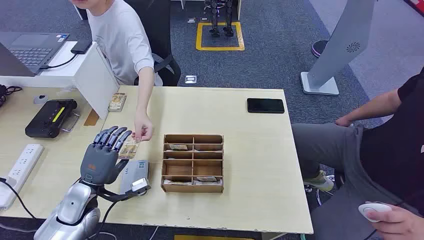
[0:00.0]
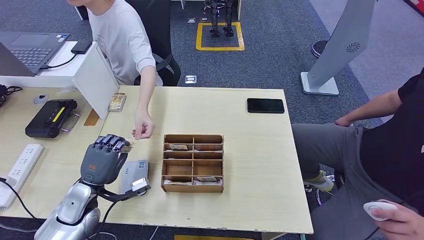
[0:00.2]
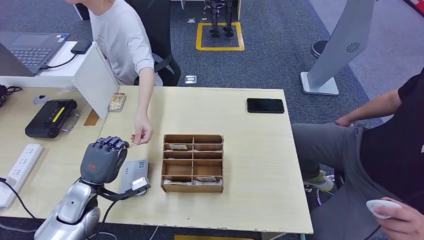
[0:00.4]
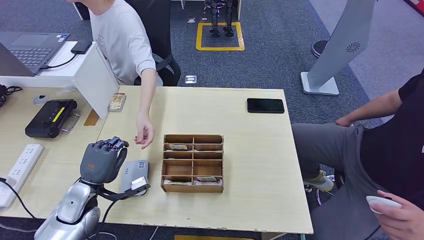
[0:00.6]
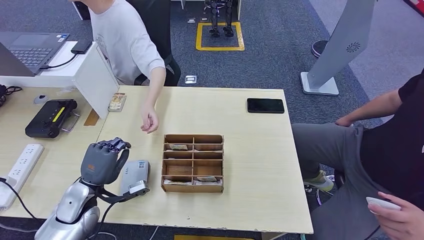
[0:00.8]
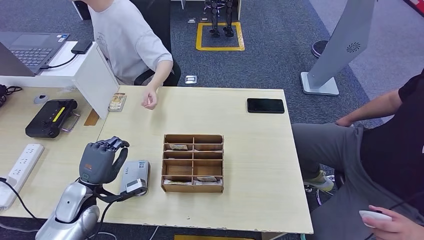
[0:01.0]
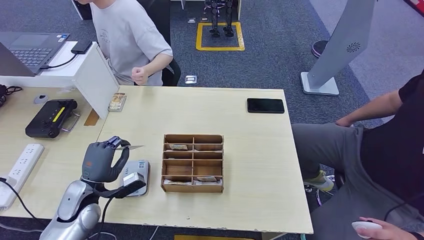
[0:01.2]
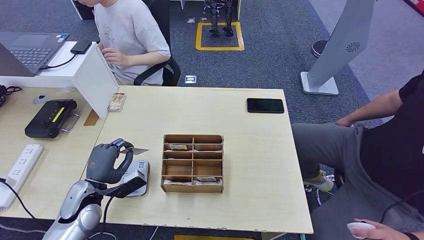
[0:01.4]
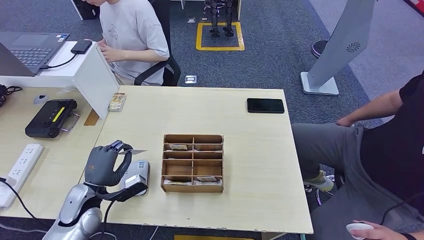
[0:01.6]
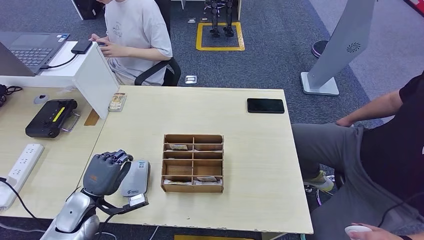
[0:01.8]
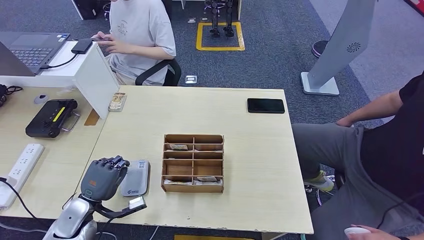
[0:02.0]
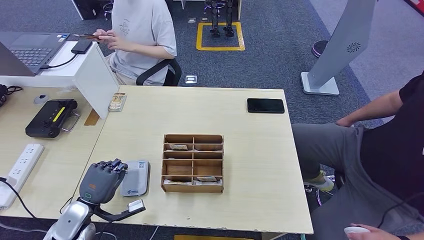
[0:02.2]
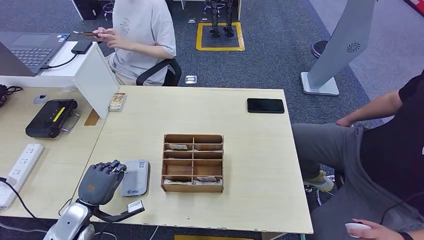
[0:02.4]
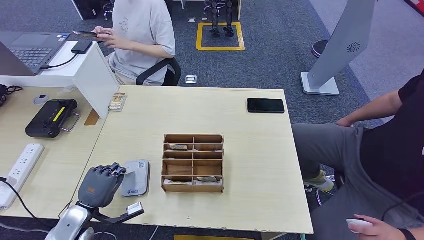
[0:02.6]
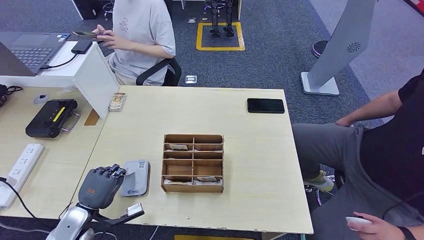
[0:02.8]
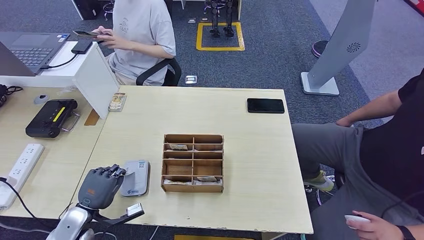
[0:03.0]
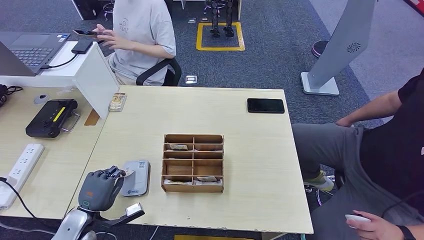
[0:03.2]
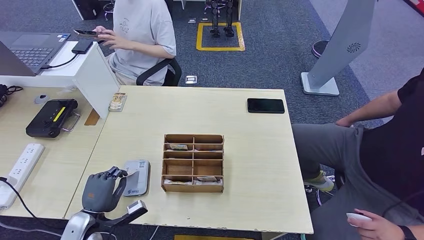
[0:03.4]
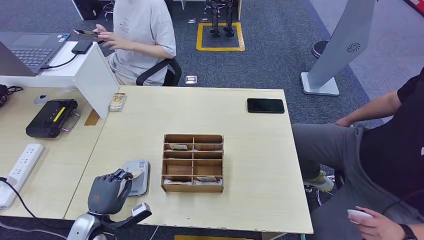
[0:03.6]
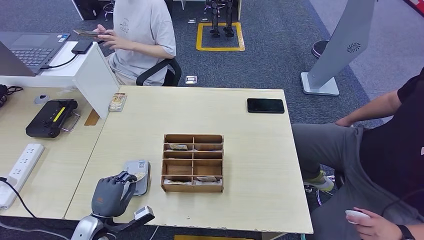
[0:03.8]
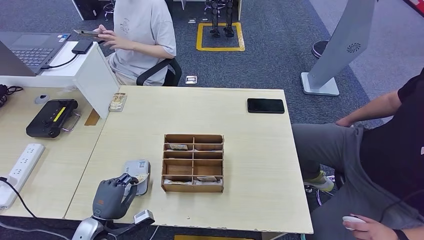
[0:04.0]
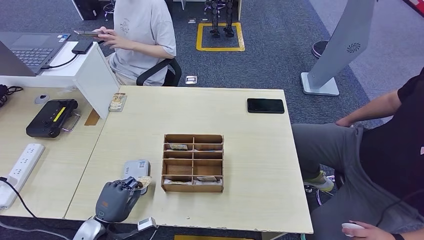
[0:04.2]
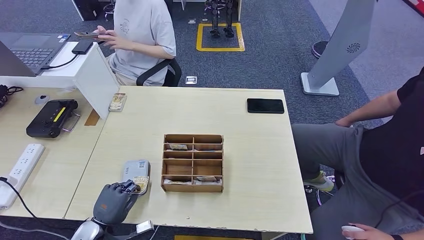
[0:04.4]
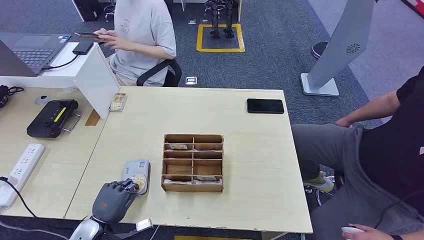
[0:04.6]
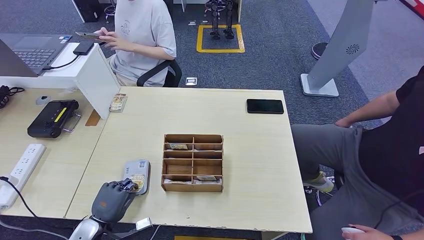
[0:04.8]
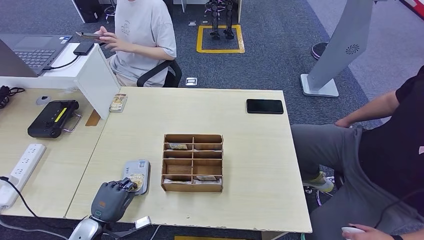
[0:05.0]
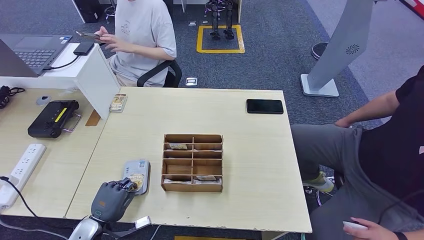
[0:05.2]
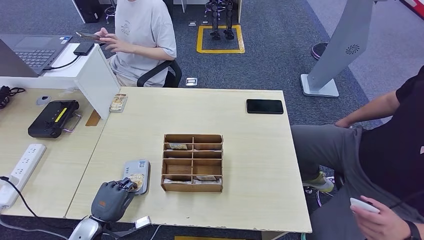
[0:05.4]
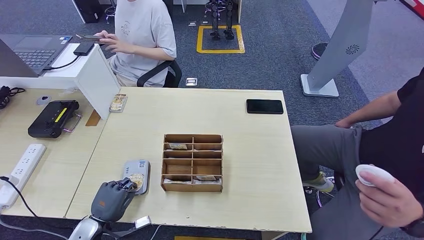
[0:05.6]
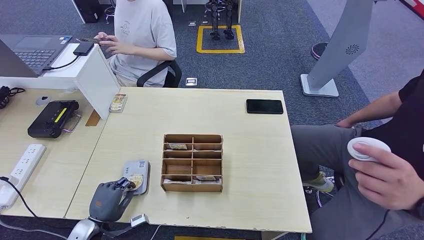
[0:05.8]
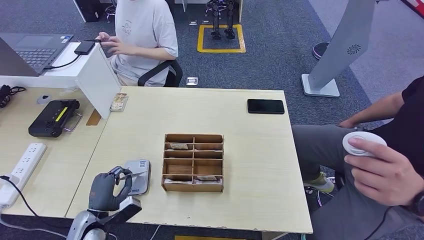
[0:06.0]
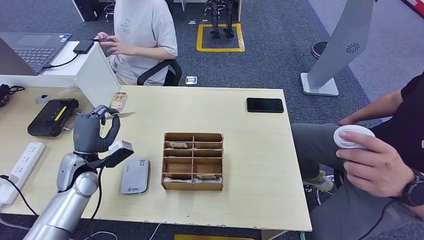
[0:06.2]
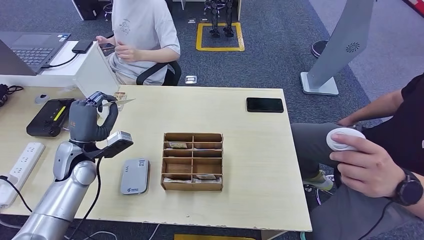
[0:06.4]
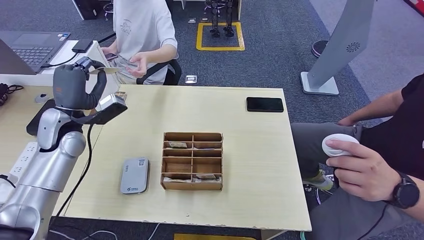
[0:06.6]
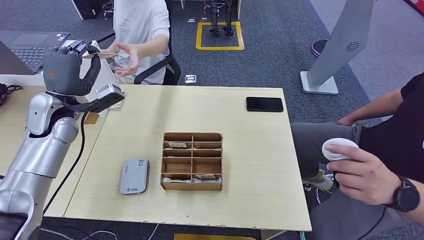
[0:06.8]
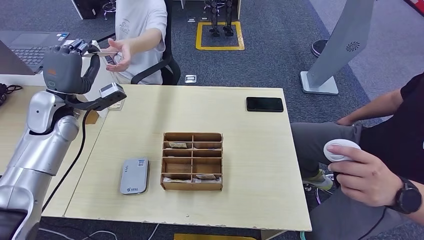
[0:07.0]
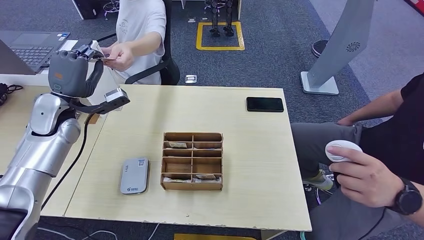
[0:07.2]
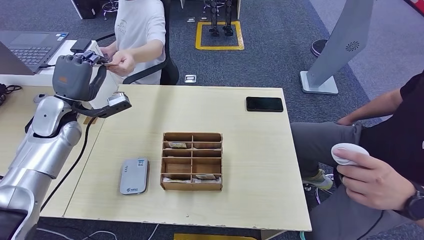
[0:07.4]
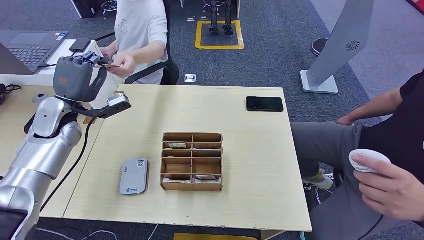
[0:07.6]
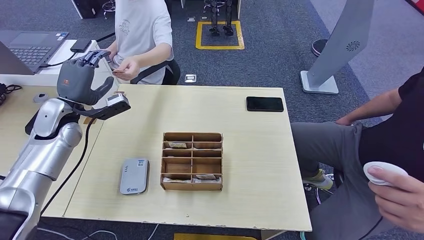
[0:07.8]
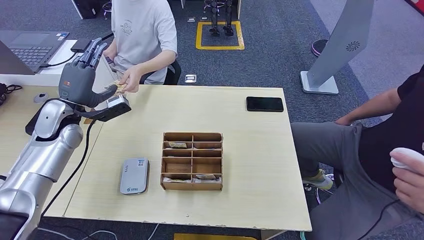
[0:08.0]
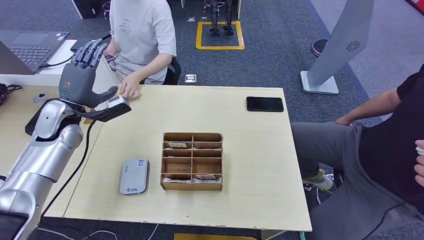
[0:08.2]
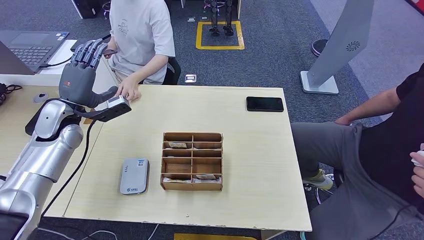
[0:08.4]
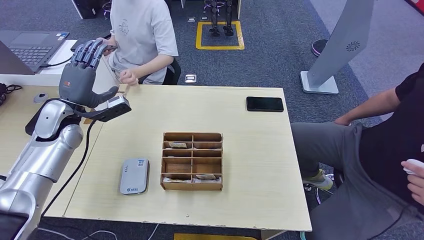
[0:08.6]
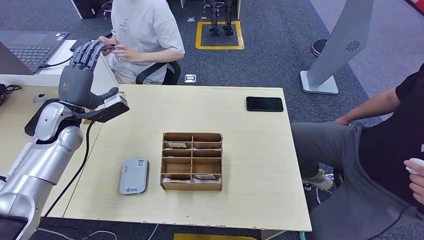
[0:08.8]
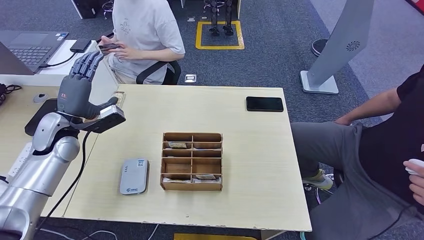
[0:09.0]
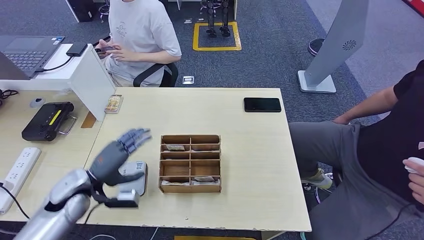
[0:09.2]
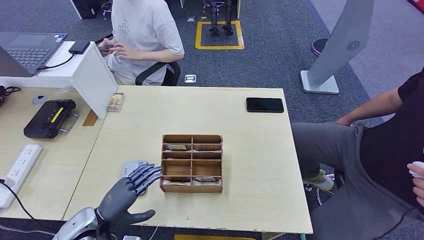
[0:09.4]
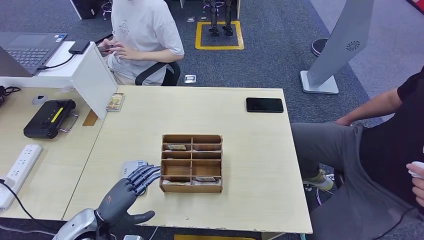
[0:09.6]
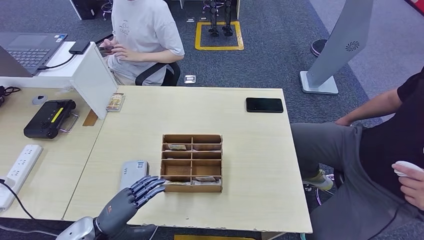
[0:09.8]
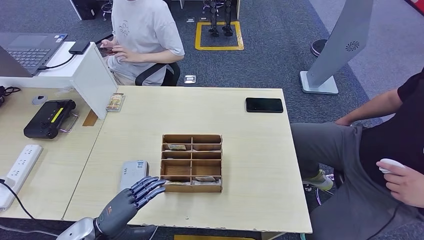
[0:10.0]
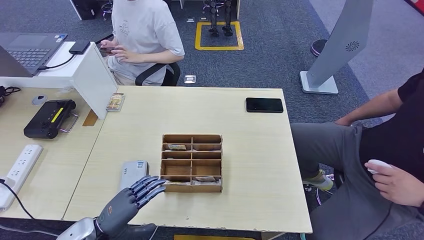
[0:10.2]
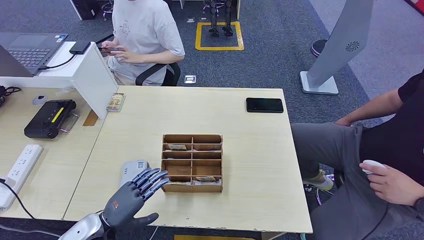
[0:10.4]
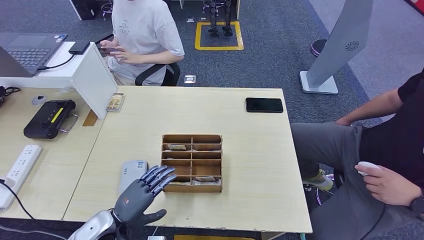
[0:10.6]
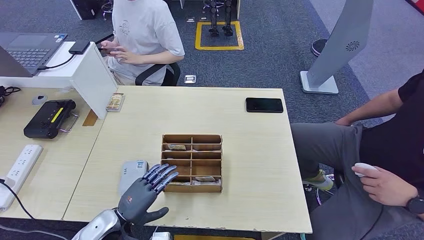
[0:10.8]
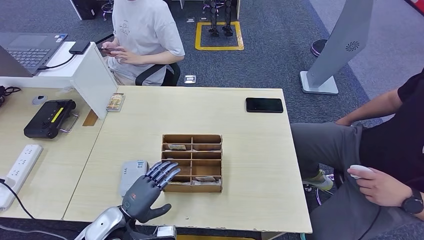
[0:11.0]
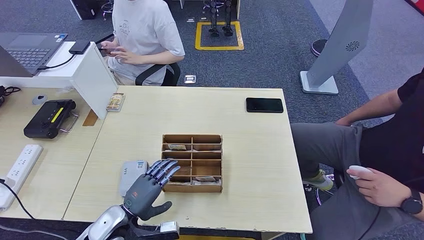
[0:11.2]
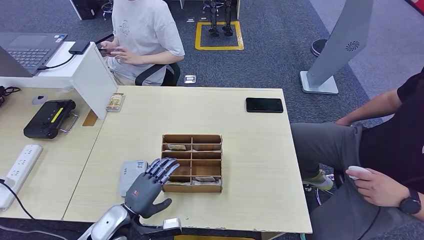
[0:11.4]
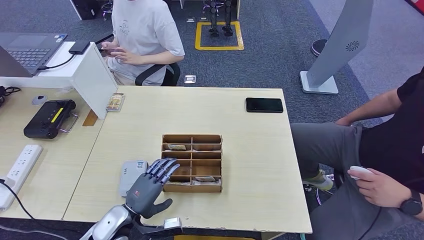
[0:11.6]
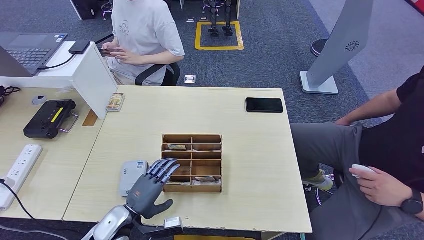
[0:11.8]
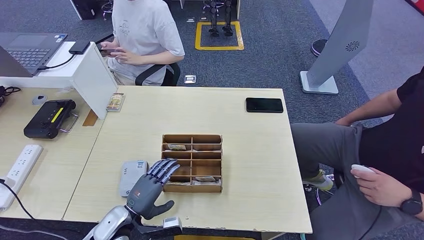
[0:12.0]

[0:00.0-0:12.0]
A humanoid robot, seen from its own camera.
Step, 0:00.0 to 0:00.8: Take the ID card from the person's hand.
Step, 0:01.0 to 0:06.0: Place the ID card on the card reader.
Step, 0:06.2 to 0:07.8: Hand the ID card to the person.
0:01.6 to 0:03.0: The left hand heads downward, covering about 5 cm.
0:03.0 to 0:04.4: The left hand changes place by roughly 5 cm.
0:07.6 to 0:09.0: The hands make only small movements.
0:09.0 to 0:10.4: The left hand is displaced backward and downward by roughly 25 cm.
0:10.4 to 0:12.0: The left hand heads to the right, covering roughly 5 cm.

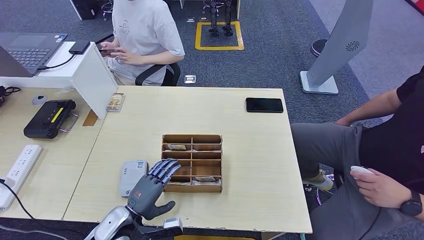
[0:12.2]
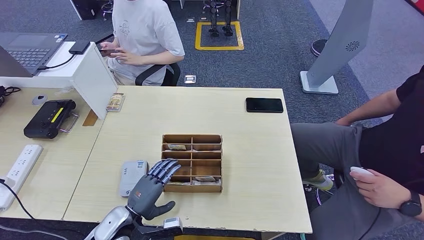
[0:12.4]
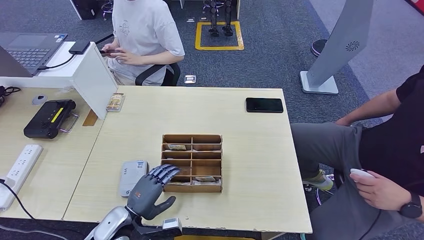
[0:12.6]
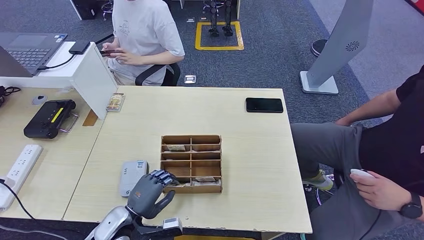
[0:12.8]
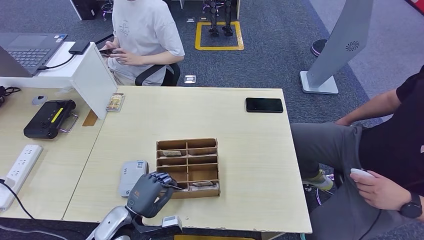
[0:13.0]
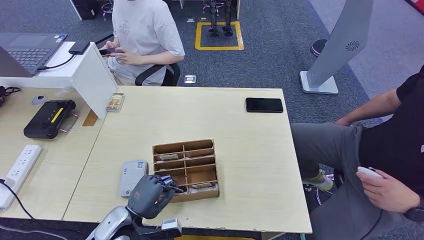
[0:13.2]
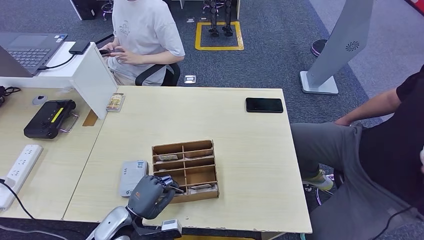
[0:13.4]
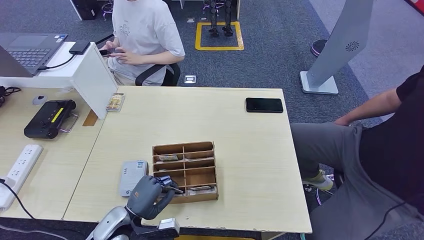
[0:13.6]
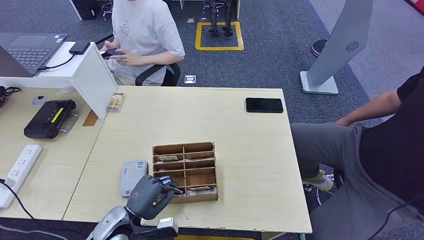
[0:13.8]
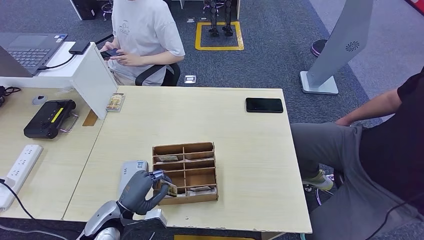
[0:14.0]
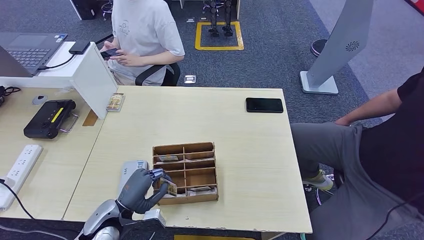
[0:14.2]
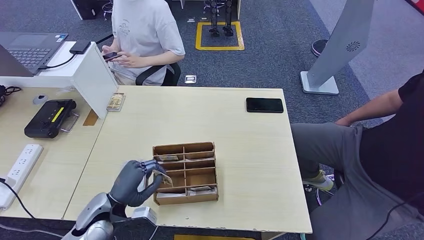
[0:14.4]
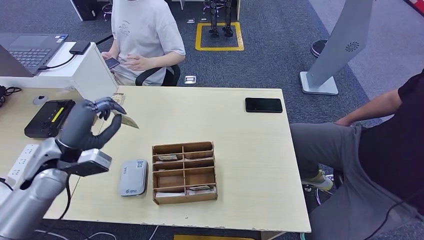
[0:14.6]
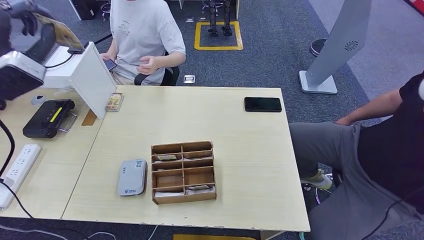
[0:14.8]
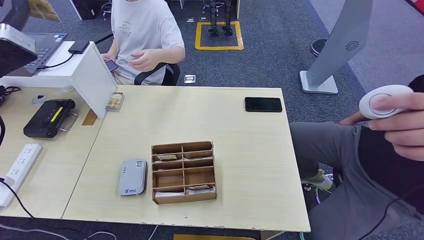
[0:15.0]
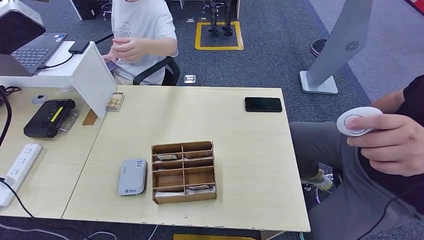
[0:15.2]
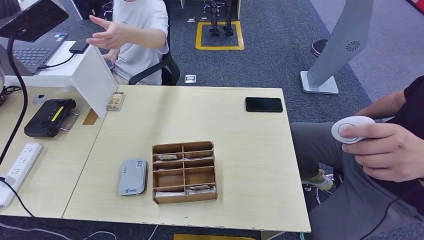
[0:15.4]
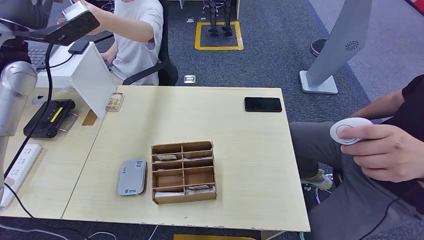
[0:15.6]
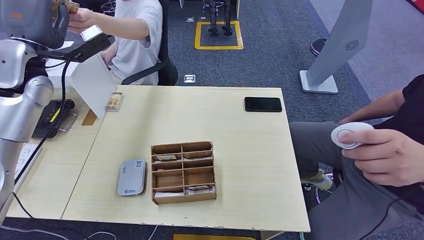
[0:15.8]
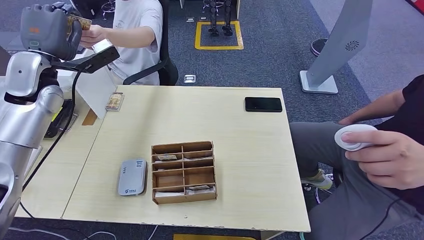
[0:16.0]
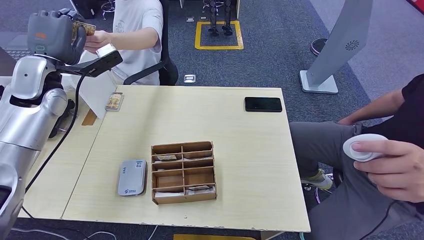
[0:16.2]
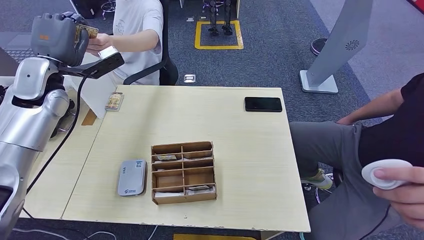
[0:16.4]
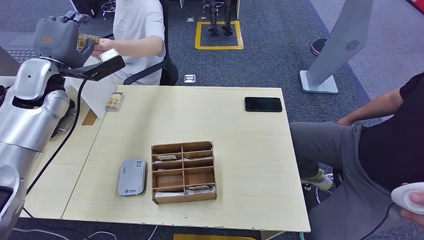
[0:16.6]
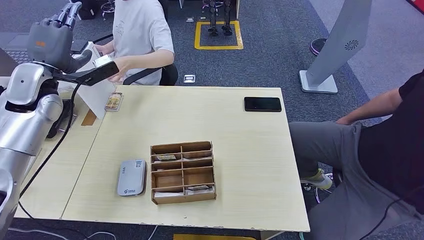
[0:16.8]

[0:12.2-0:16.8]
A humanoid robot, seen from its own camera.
Step, 0:12.2 to 0:14.4: Pick up the room key from the key card box.
Step, 0:14.8 to 0:16.8: Hand the room key to the person.
0:12.2 to 0:13.8: The hands move only a little.
0:13.8 to 0:15.2: The left hand goes approximately 40 cm upward.
0:15.2 to 0:16.8: The left hand shifts some 15 cm downward and forward.
